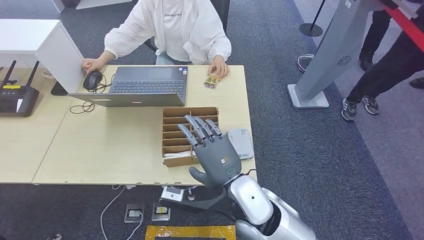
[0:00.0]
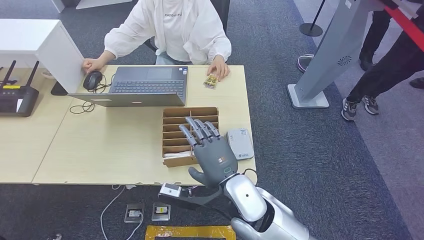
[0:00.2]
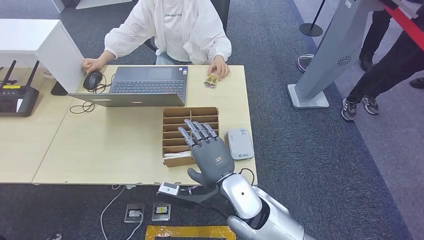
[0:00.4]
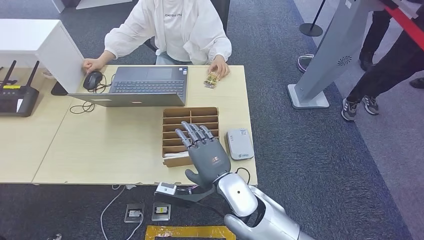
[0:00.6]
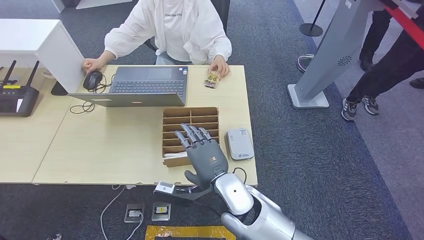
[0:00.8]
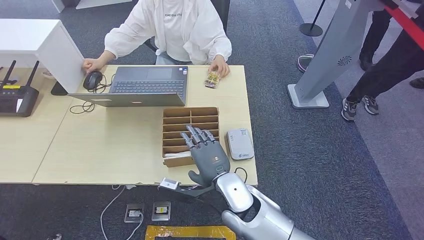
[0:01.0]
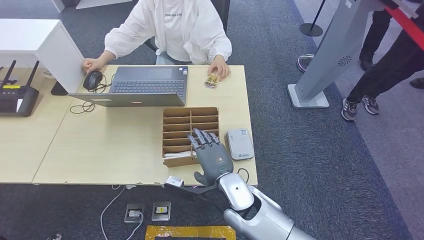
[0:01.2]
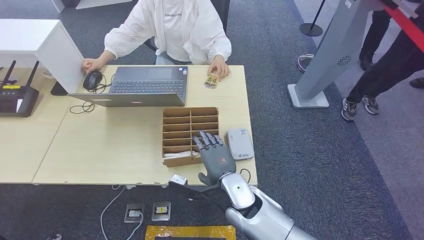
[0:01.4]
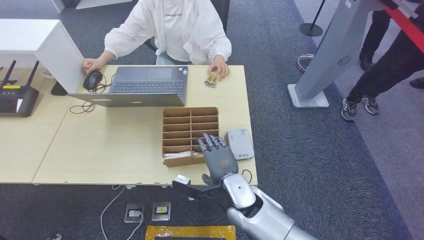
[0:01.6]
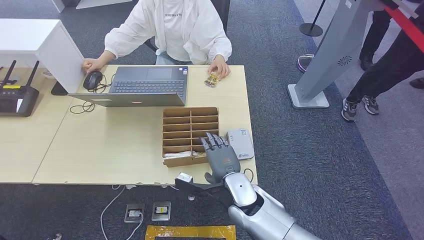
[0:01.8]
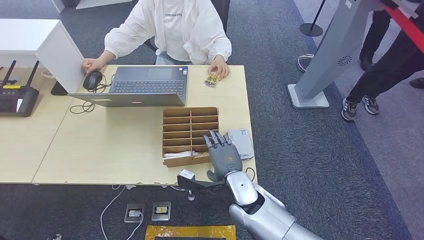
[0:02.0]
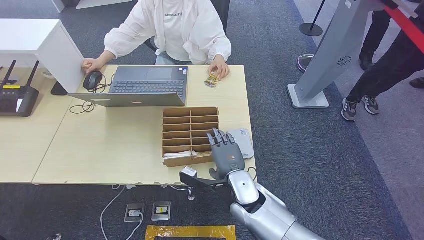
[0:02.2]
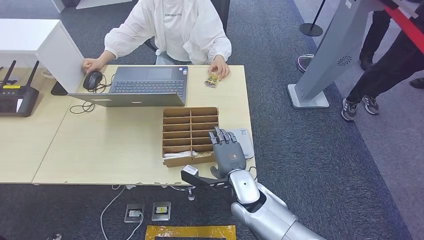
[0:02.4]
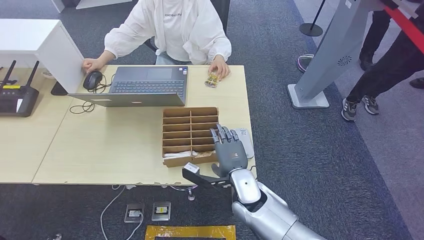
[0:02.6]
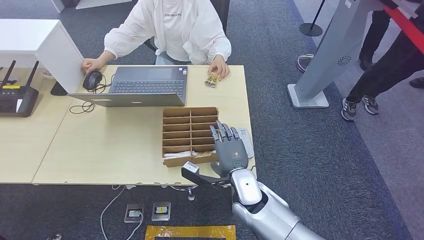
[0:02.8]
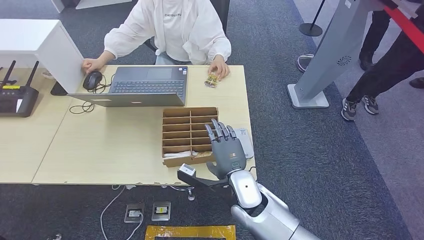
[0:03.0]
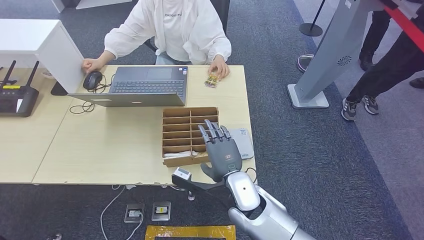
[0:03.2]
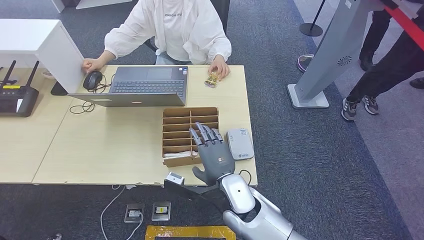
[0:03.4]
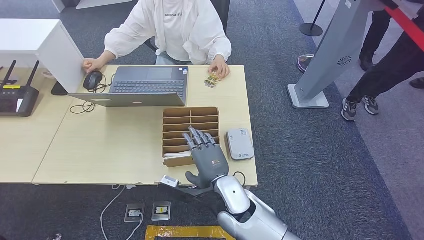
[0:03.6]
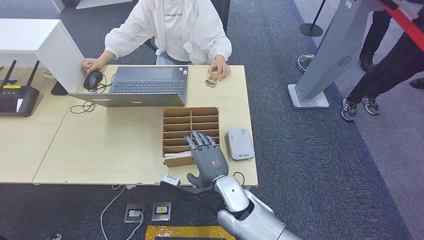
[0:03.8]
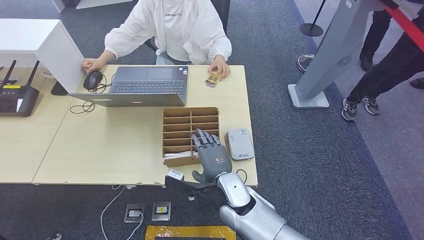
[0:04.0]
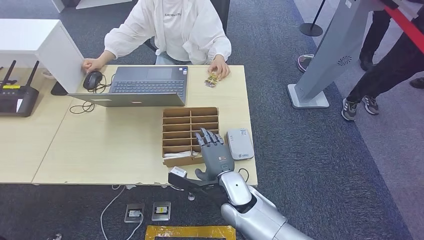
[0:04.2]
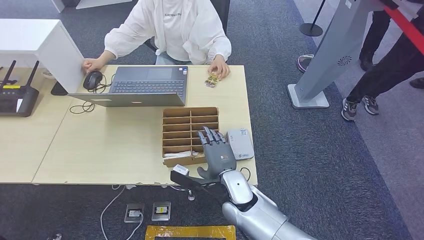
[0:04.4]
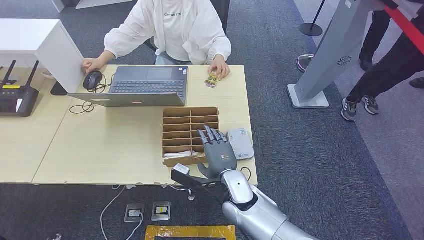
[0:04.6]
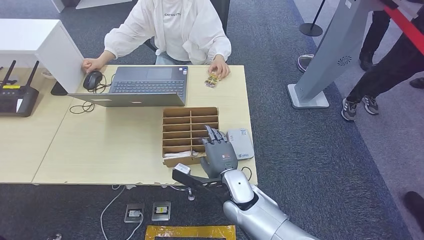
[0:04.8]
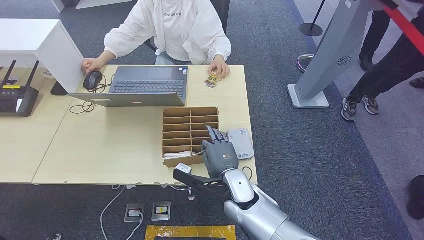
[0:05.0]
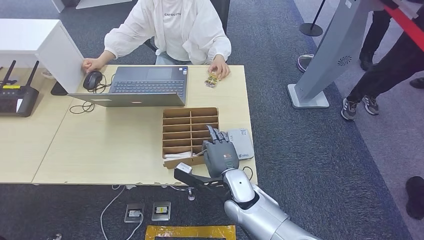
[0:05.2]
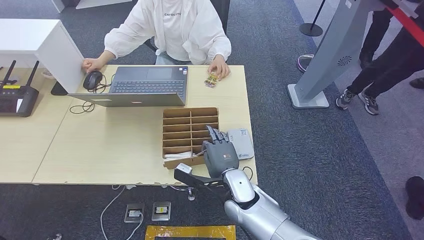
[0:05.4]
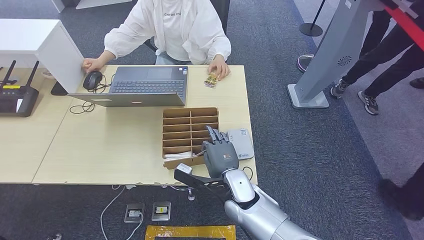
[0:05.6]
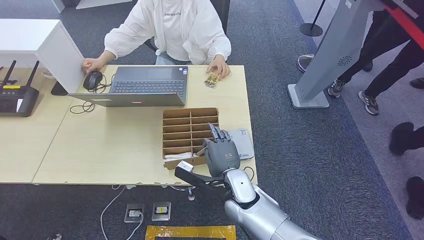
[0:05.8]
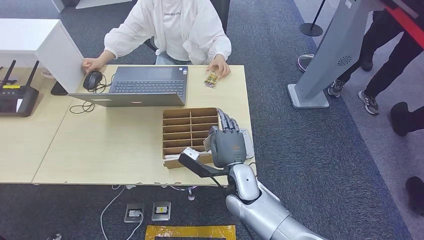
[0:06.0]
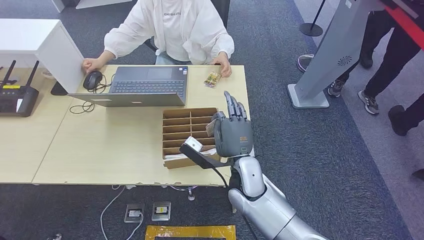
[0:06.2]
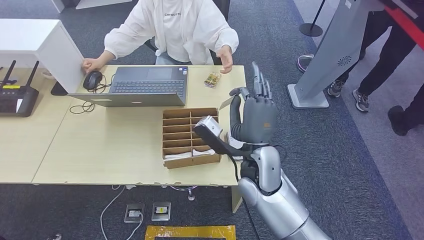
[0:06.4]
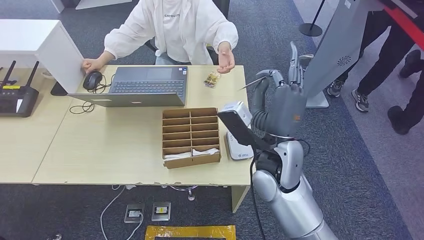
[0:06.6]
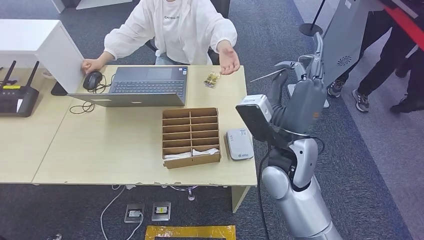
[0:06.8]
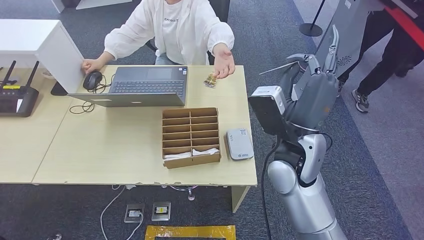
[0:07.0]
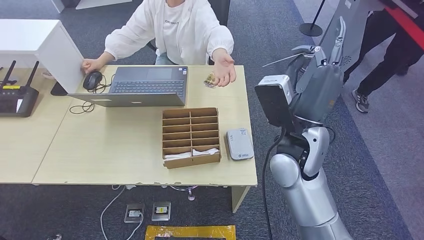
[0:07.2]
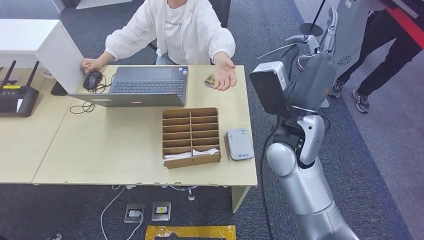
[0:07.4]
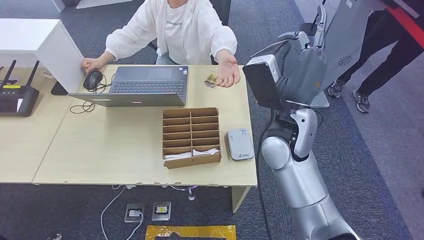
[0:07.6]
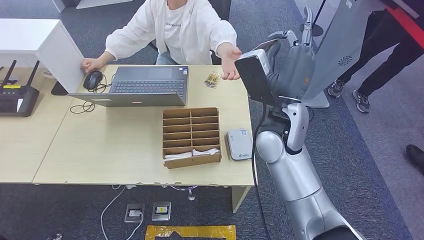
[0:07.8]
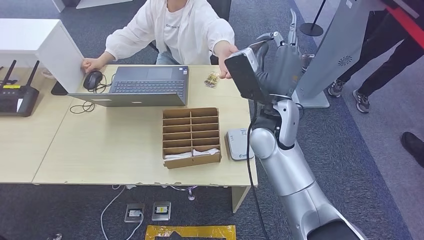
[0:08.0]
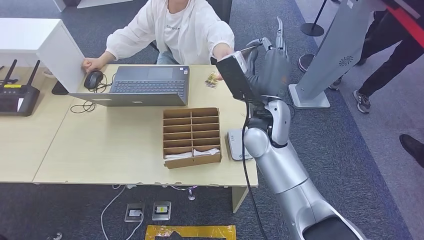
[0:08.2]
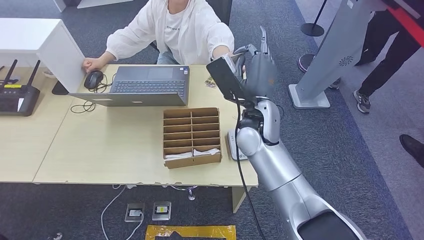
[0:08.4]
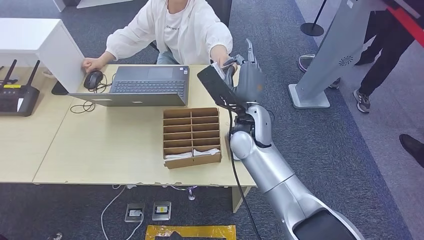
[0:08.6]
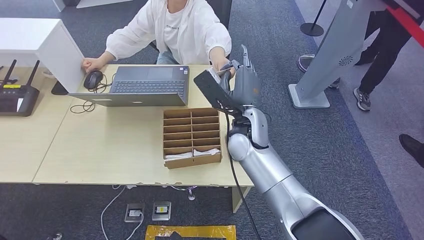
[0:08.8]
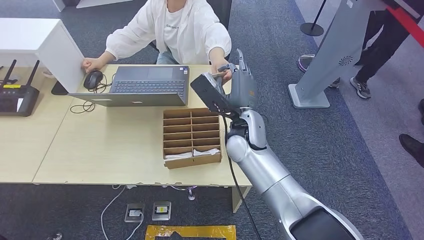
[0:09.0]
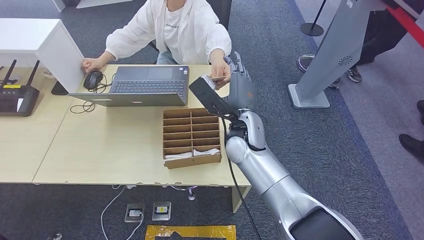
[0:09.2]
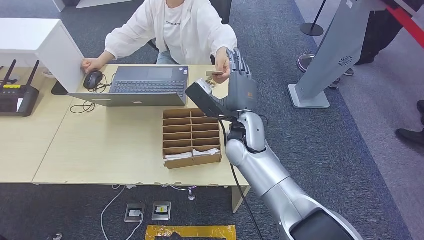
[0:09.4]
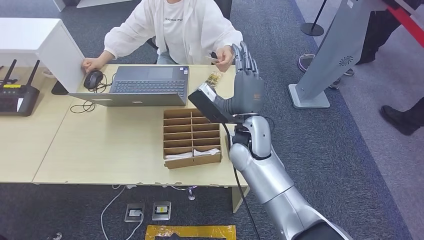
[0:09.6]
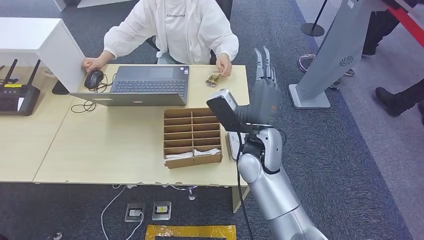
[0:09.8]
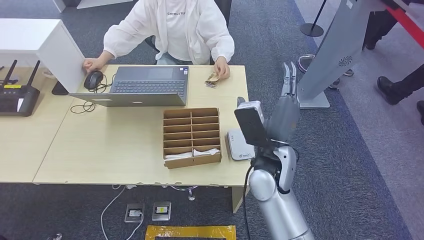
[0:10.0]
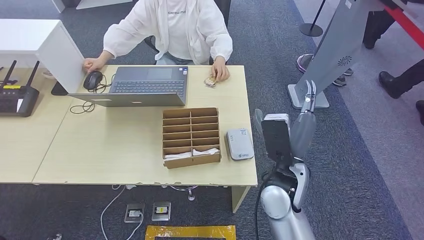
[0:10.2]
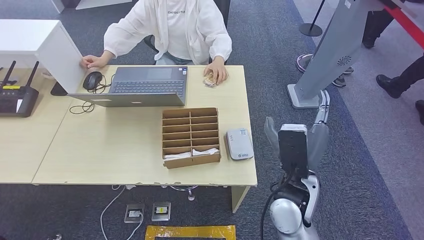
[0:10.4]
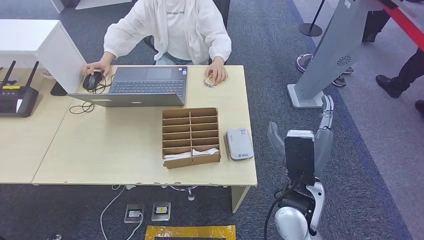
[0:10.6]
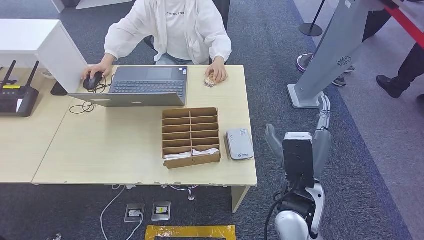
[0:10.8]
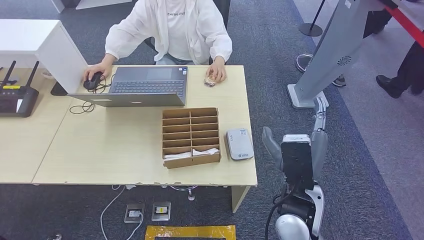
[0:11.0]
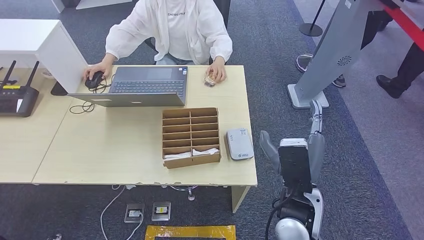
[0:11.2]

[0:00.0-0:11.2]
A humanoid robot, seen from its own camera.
Step, 0:00.0 to 0:06.2: Pick up the room key from the key card box.
Step, 0:06.4 to 0:11.2: Hand the room key to the person.
0:00.0 to 0:01.6: The right hand goes about 10 cm downward.
0:01.6 to 0:04.8: The hands stay close to where they were, moving slightly.
0:04.8 to 0:06.4: The right hand goes approximately 10 cm upward.
0:06.4 to 0:08.0: The right hand goes about 10 cm upward and forward.
0:08.0 to 0:09.6: The right hand is displaced downward by roughly 5 cm.
0:09.6 to 0:11.2: The right hand travels backward and to the right by roughly 15 cm.
